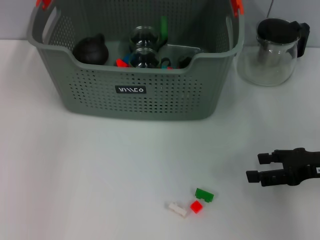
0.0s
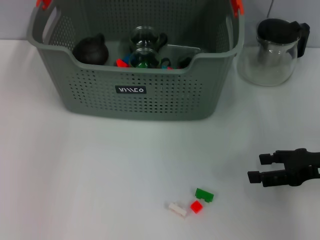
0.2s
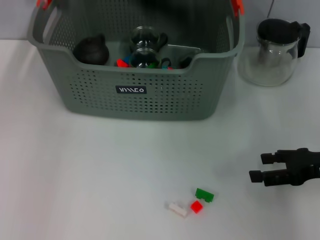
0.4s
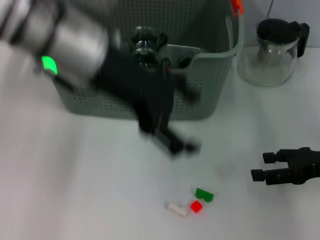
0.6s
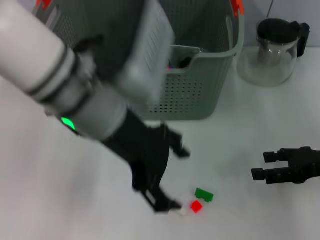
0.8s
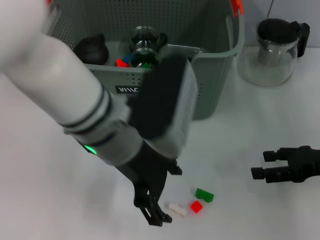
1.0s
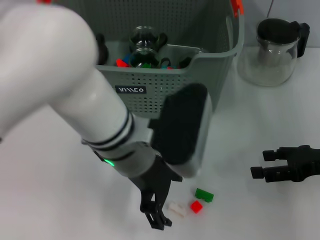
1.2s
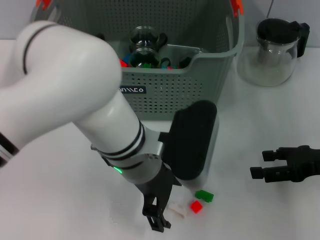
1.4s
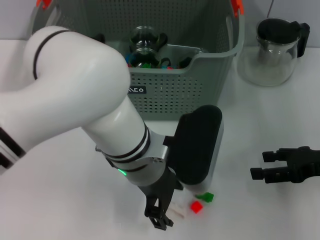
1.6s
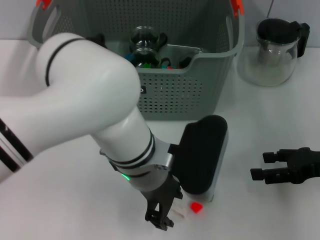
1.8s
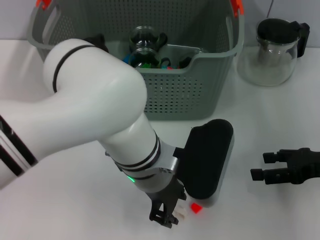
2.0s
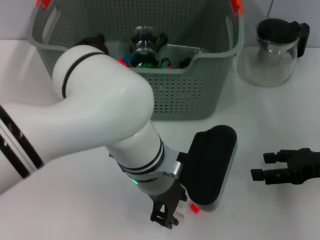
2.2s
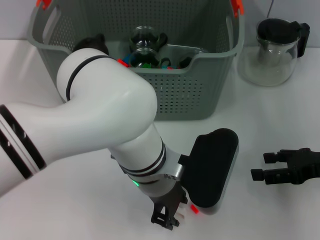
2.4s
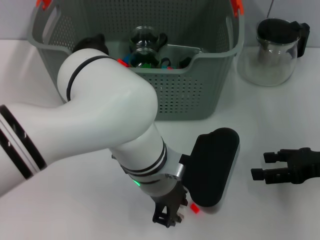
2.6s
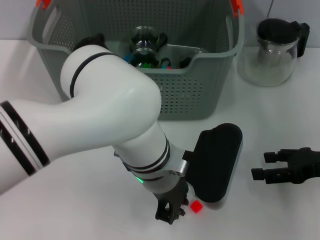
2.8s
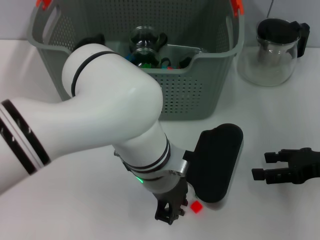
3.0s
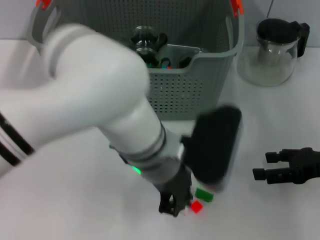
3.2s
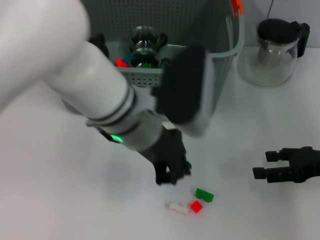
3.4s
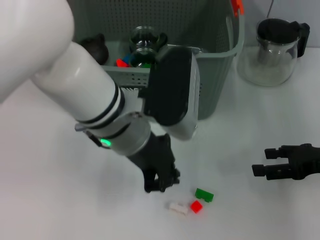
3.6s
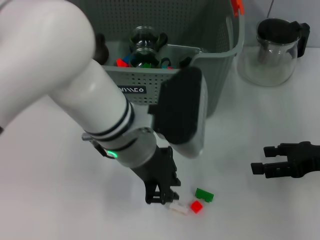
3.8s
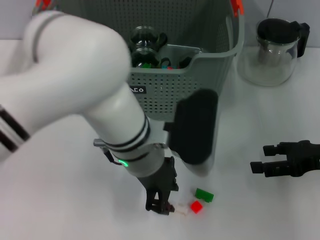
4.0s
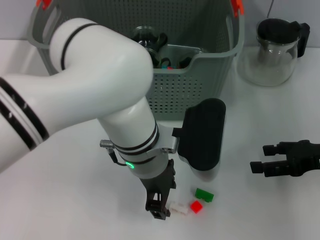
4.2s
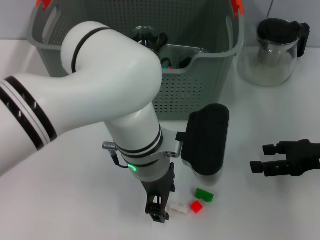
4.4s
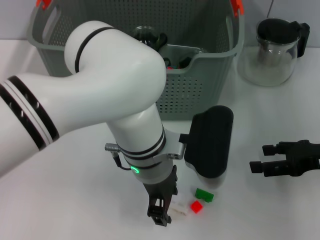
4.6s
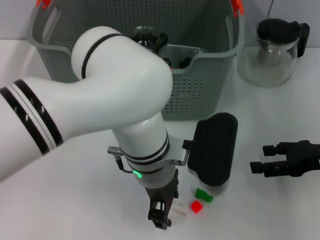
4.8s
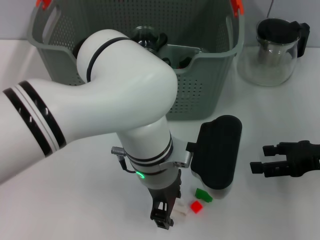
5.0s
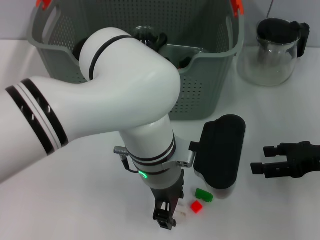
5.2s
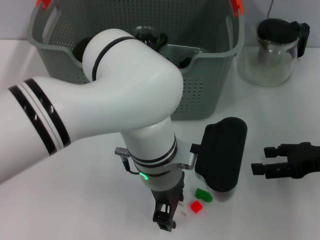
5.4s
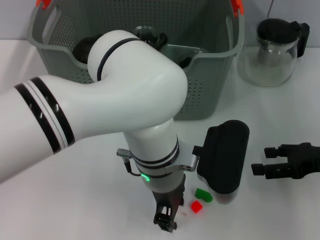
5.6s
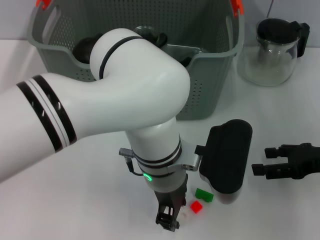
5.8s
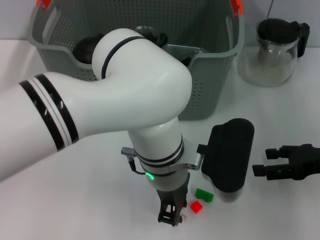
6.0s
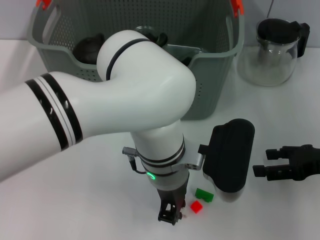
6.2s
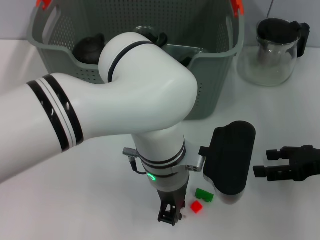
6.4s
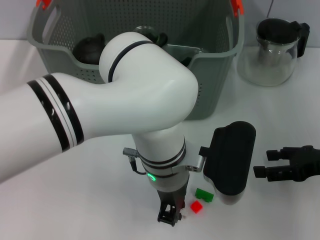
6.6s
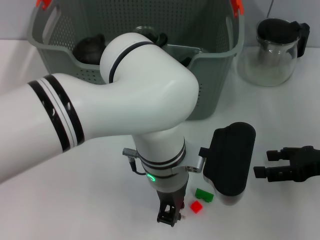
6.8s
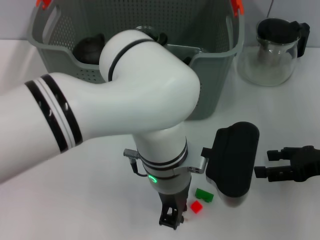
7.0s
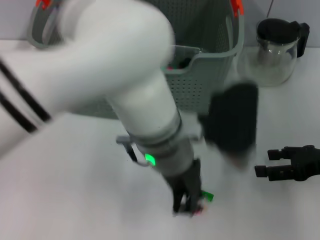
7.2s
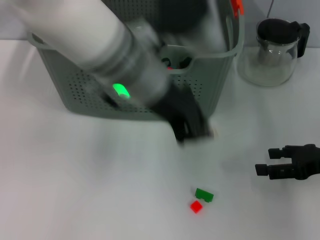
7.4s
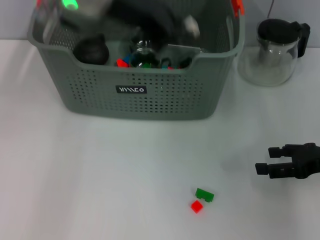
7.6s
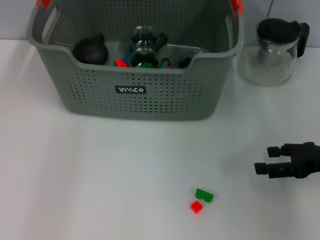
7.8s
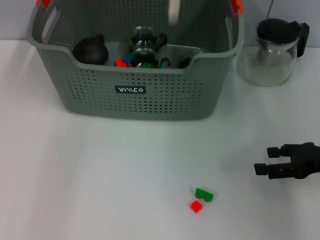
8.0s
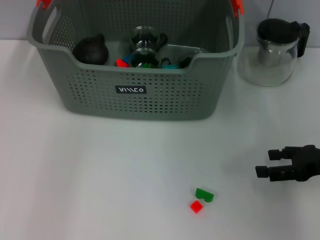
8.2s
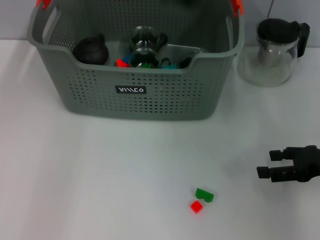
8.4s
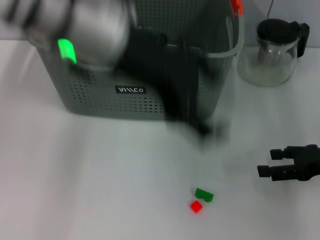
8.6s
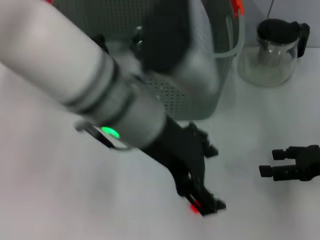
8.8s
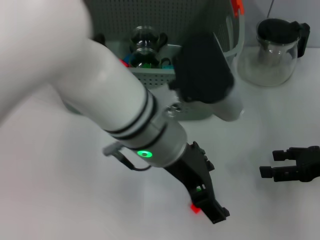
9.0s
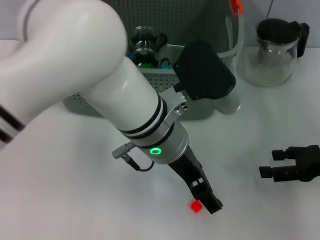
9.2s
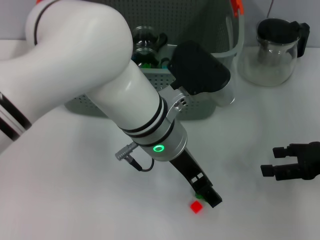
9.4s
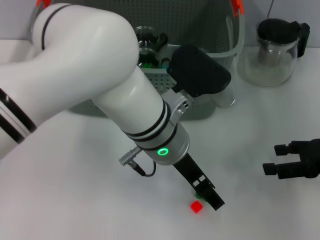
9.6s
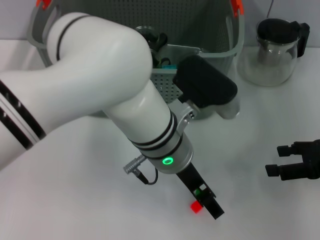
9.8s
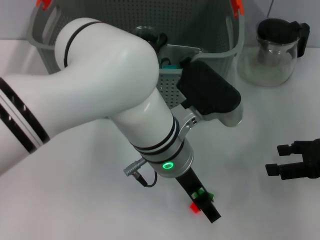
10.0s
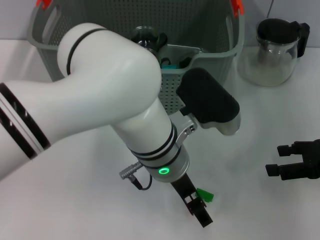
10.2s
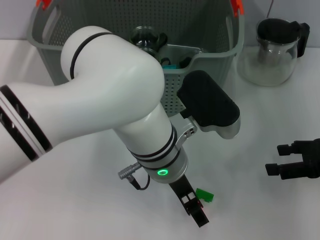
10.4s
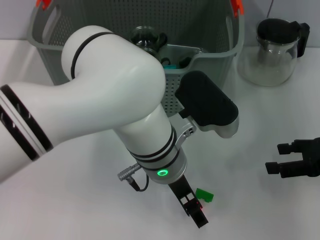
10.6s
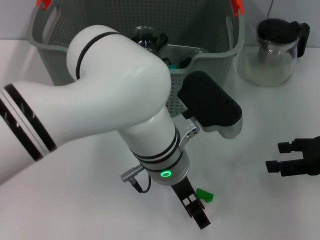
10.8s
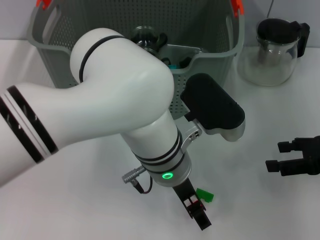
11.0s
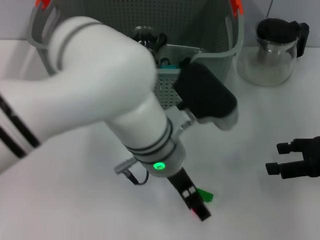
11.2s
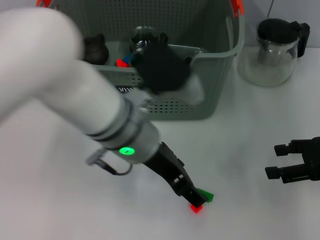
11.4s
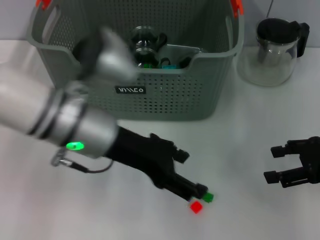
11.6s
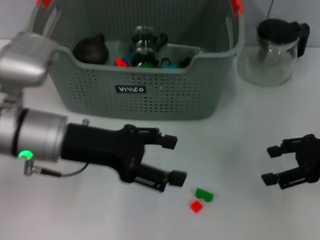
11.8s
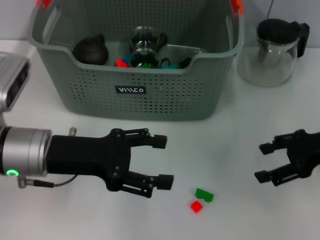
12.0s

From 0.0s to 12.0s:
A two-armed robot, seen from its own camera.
Task of the whole recording: pick up the teacup on the table and place it into the storage bin, pick up the block on the table and place it into the storage bin.
Step, from 0.4s to 6.6s: Grasp the white block with left gripper.
Step, from 7.0s to 8.2s: Place the white block in the storage box with left gripper.
From 0.0s to 1.6s: The left gripper shifts some 25 cm downward, backward and to the right, and opens.
From 1.6s to 3.0s: The left gripper closes up.
From 3.0s to 4.4s: The left gripper opens.
From 6.0s to 7.6s: The left gripper travels upward, to the left and forward by some 25 cm.
From 7.6s to 9.0s: The left gripper goes roughly 15 cm downward, to the right and backward, and opens.
From 9.0s to 10.4s: The left gripper moves downward, roughly 5 cm.
From 10.4s to 12.0s: The right gripper shifts by some 5 cm. Meanwhile the left gripper heads to the left, covering about 20 cm.

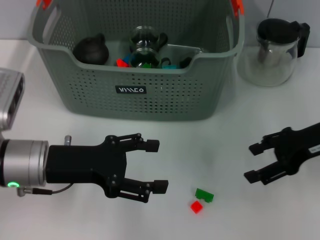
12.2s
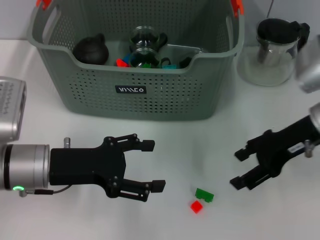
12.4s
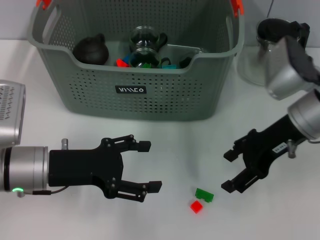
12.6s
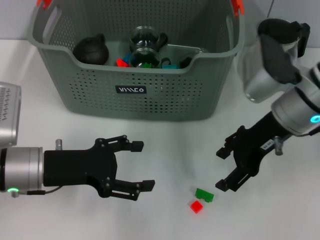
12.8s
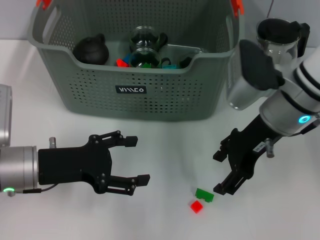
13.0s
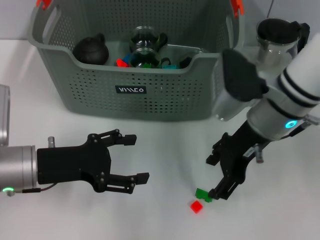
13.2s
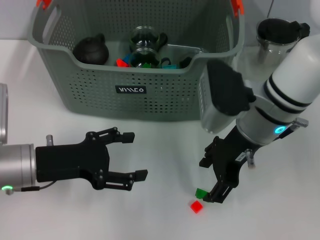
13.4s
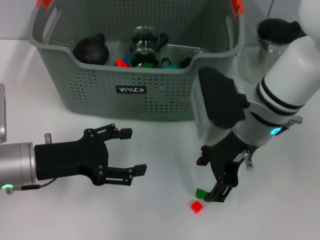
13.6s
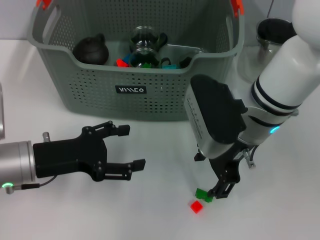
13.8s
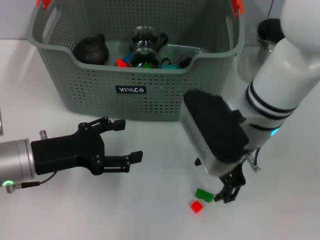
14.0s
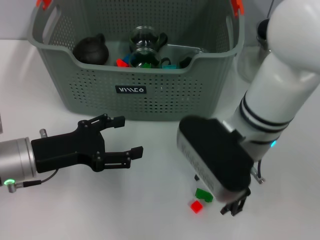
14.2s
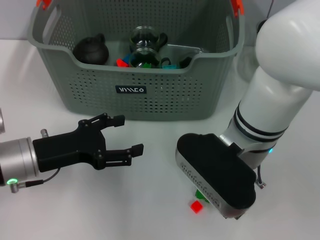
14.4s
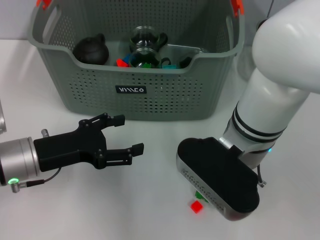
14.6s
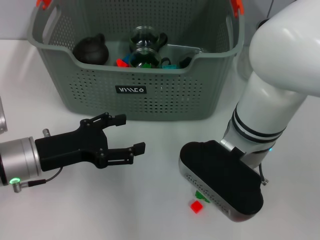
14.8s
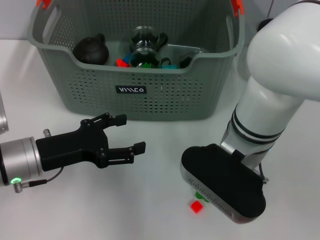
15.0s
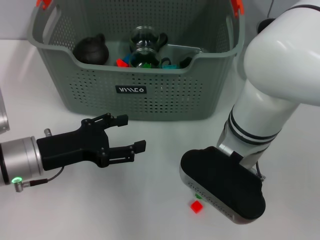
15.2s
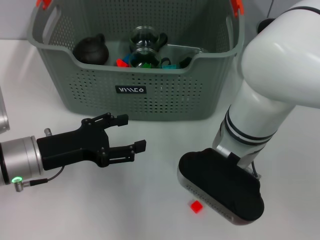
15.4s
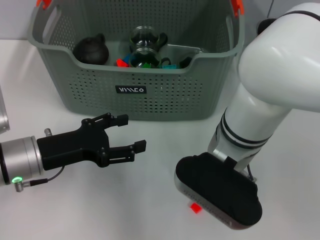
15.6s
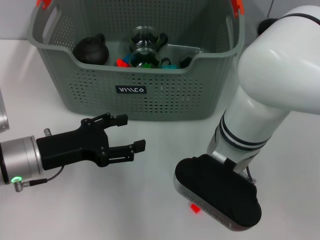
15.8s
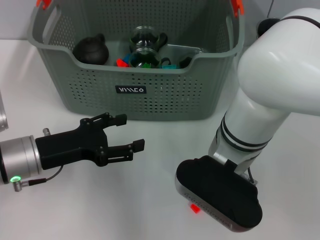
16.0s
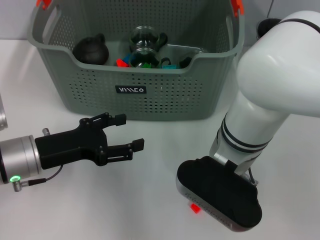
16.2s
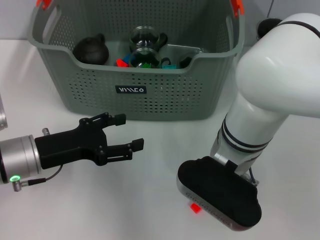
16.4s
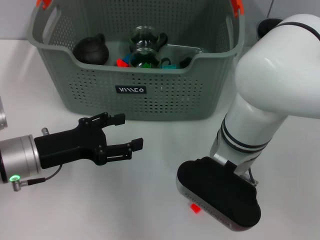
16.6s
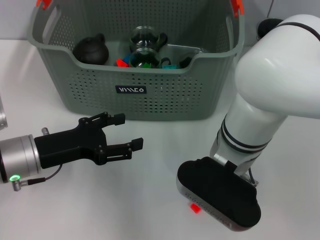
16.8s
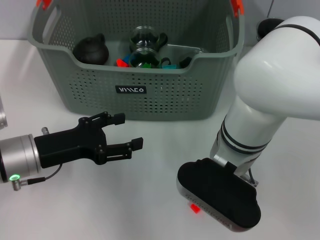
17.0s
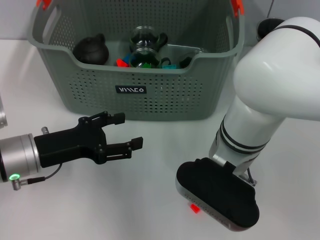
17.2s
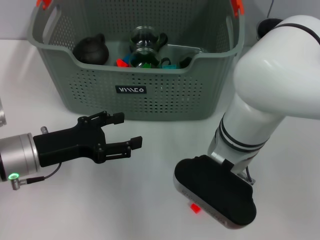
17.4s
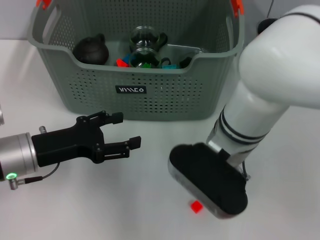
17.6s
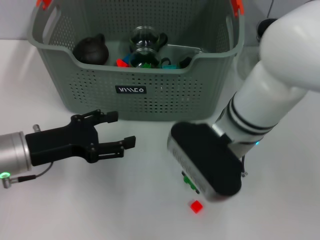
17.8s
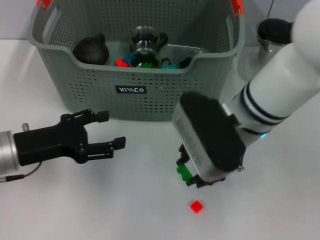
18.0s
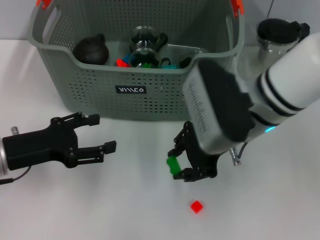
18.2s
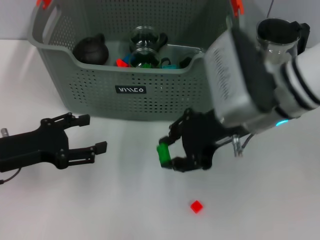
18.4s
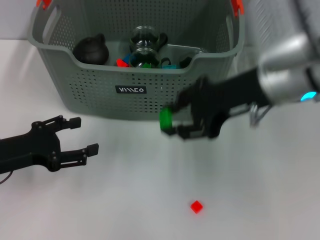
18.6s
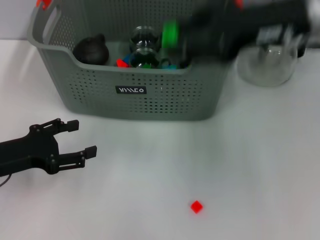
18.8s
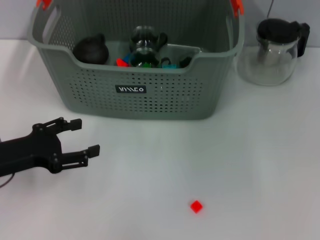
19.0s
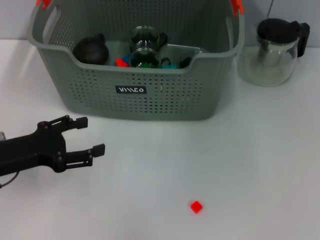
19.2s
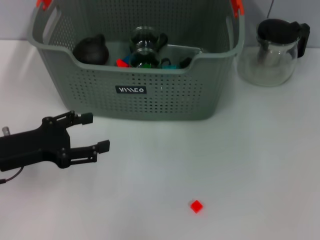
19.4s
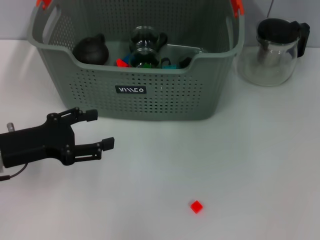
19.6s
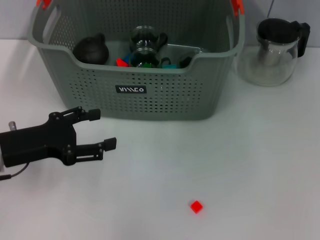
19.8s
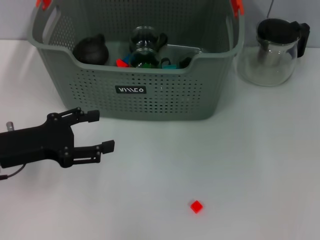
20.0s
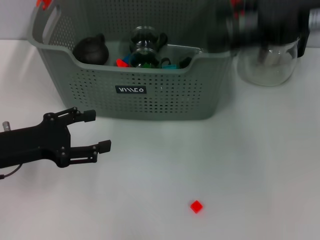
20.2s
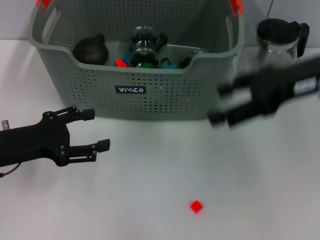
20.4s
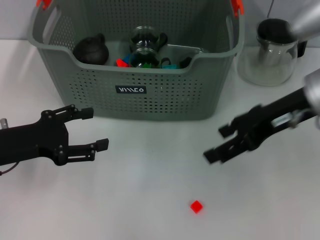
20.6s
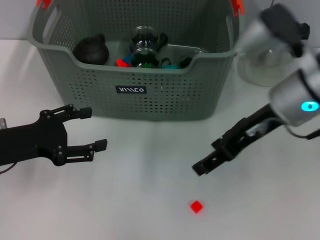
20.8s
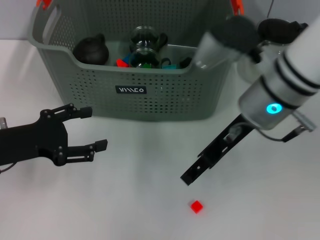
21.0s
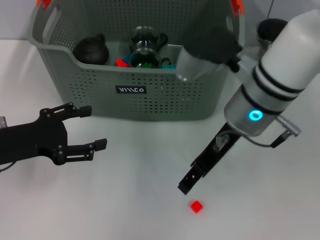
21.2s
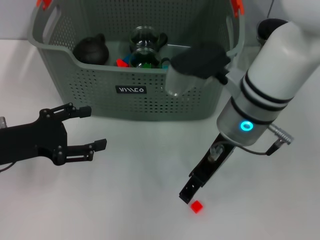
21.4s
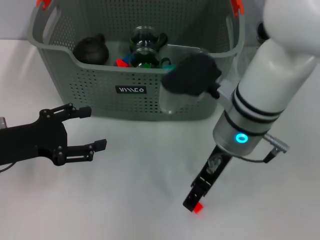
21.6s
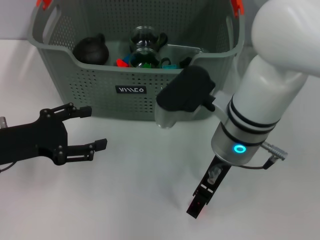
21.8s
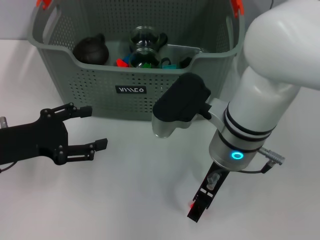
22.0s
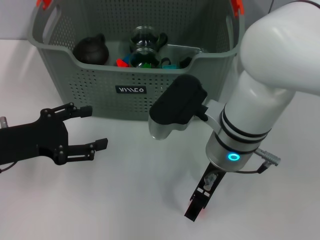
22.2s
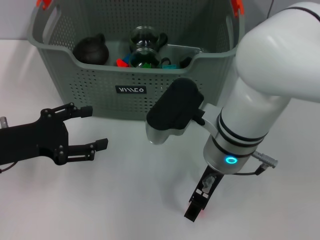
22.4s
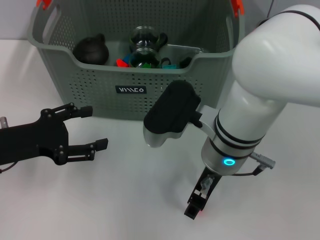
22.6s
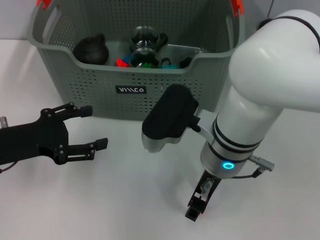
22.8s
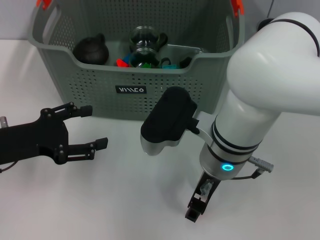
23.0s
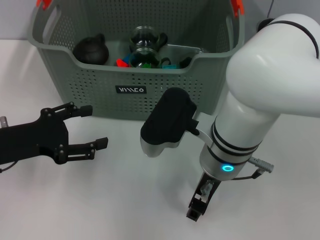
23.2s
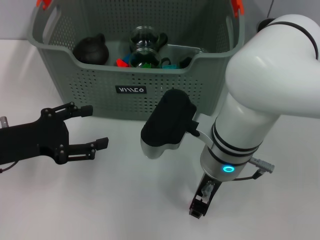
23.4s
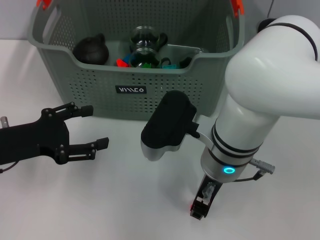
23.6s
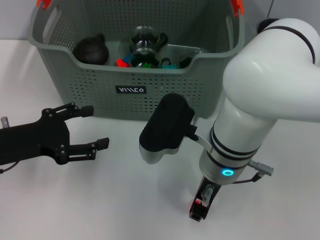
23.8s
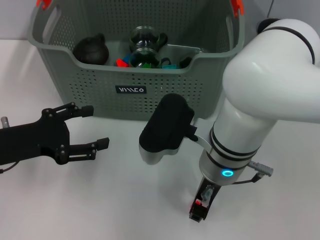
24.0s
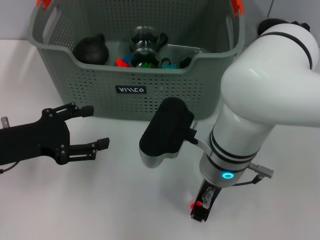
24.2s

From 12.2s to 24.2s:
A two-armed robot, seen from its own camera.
Task of the whole recording: pick up the teacup on the table and place it into the storage bin, pick up the block on the table and place it into the storage bin.
Step, from 12.2s to 17.2s: Grasp the green block with right gripper.
Step, from 17.4s to 19.4s: Place the green block in the storage box with right gripper.
From 12.2s to 13.8s: The right gripper is displaced to the left by approximately 15 cm.
From 15.2s to 16.6s: There are only small adjustments of the grippers.
From 16.6s to 18.2s: The right gripper moves some 5 cm, and closes its fingers.
From 18.2s to 19.8s: The right gripper heads to the right, upward and forward, covering some 20 cm, and opens its fingers.
From 19.8s to 21.2s: The right gripper heads to the left, downward and backward, covering roughly 20 cm.
From 21.2s to 22.6s: The right gripper ends up approximately 5 cm from where it was.
From 22.6s to 24.2s: The right gripper closes up.
